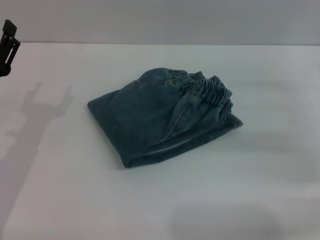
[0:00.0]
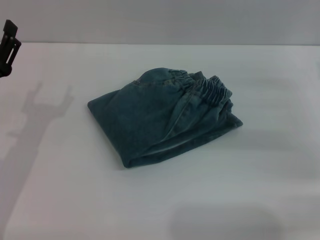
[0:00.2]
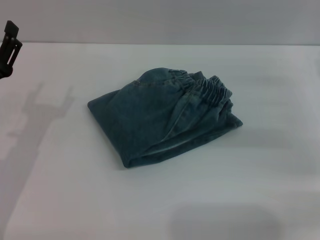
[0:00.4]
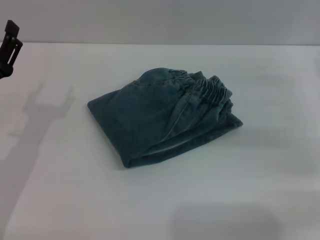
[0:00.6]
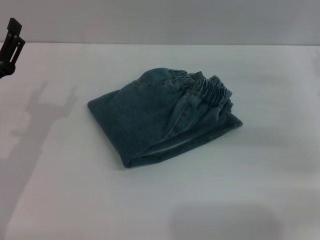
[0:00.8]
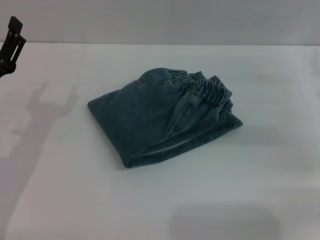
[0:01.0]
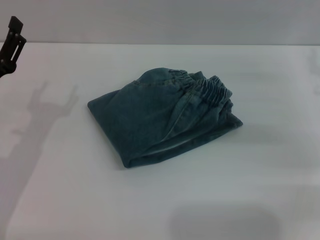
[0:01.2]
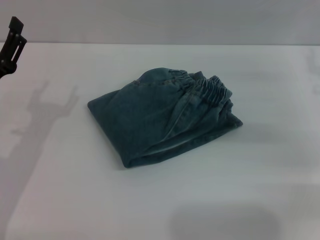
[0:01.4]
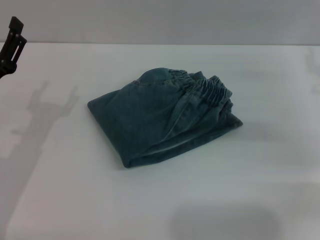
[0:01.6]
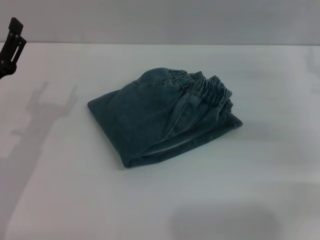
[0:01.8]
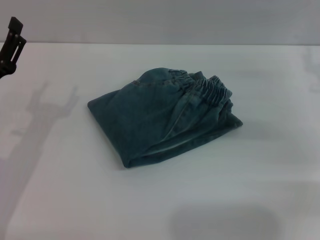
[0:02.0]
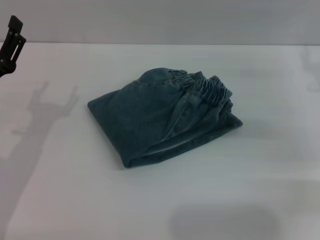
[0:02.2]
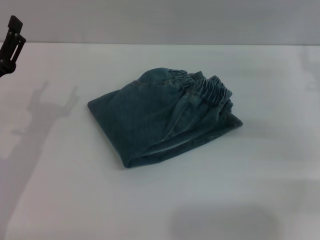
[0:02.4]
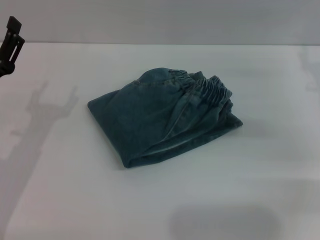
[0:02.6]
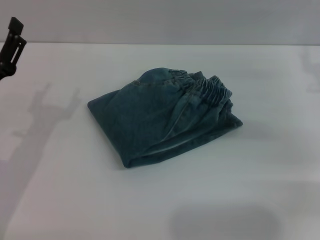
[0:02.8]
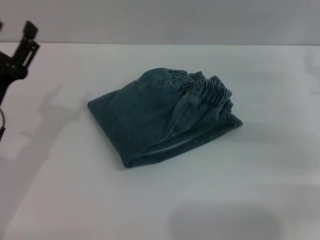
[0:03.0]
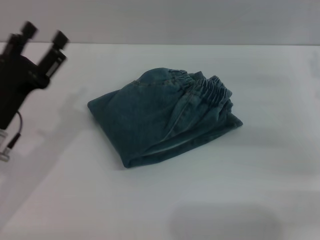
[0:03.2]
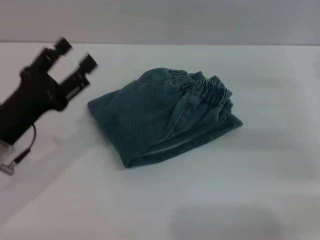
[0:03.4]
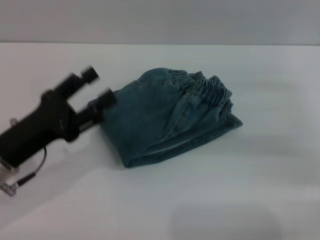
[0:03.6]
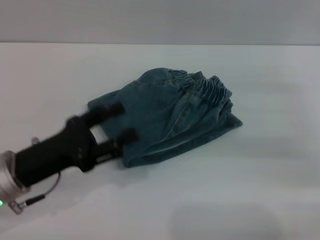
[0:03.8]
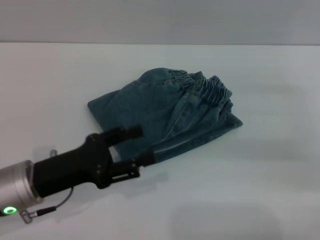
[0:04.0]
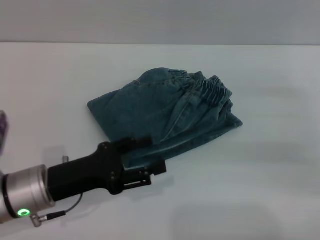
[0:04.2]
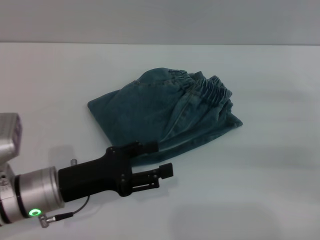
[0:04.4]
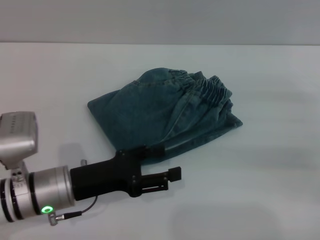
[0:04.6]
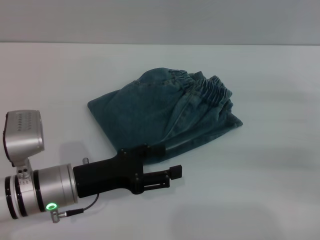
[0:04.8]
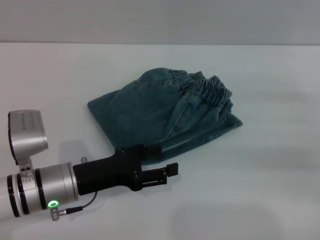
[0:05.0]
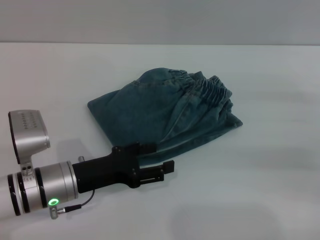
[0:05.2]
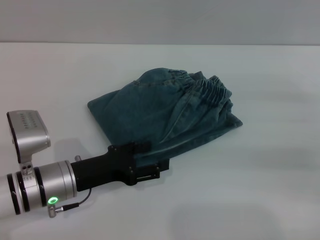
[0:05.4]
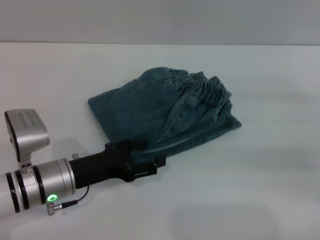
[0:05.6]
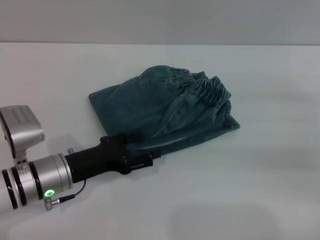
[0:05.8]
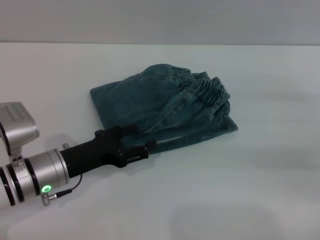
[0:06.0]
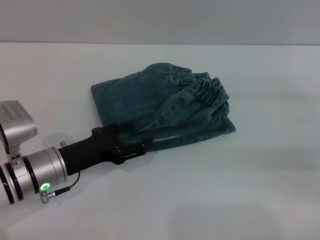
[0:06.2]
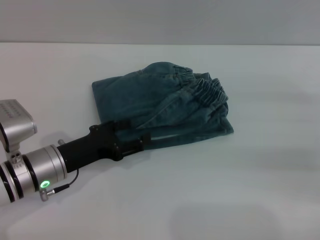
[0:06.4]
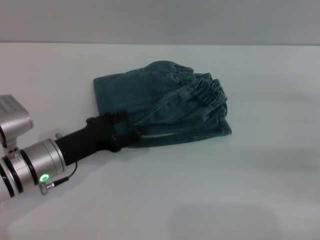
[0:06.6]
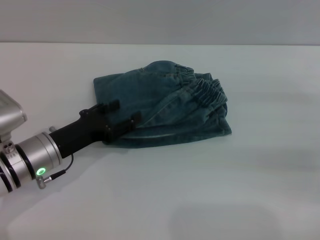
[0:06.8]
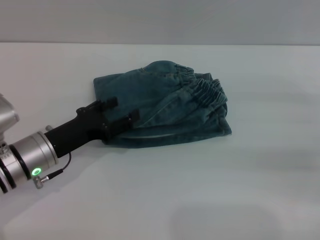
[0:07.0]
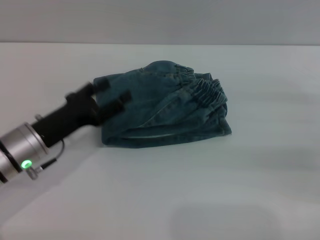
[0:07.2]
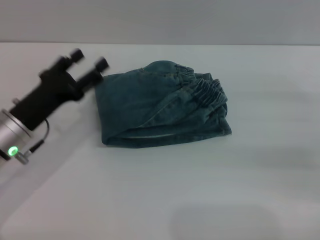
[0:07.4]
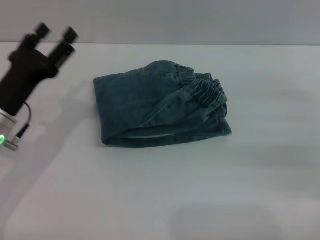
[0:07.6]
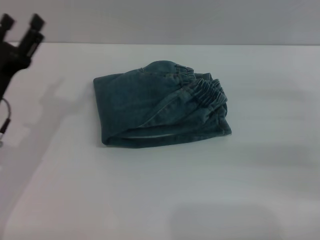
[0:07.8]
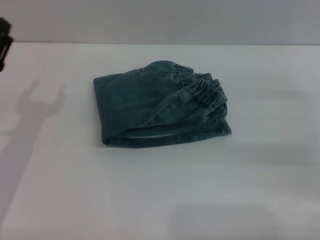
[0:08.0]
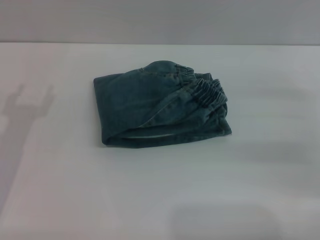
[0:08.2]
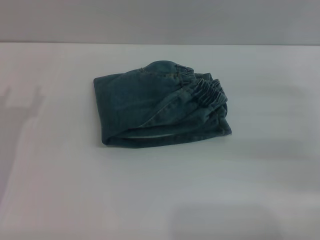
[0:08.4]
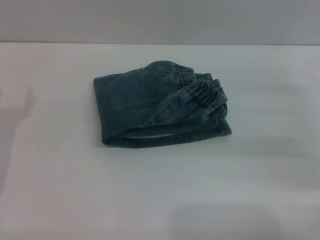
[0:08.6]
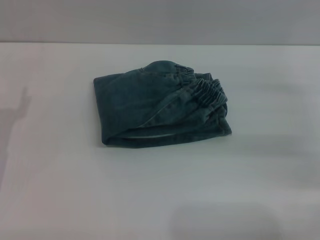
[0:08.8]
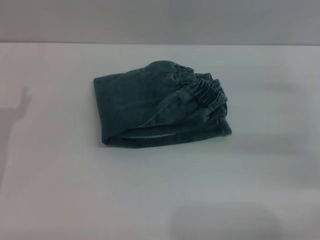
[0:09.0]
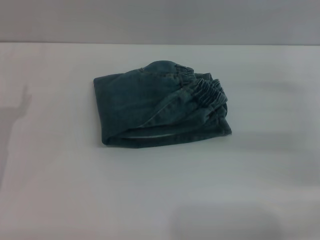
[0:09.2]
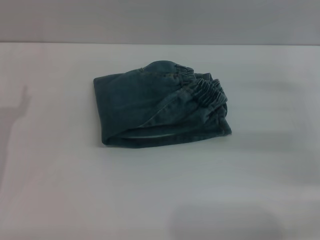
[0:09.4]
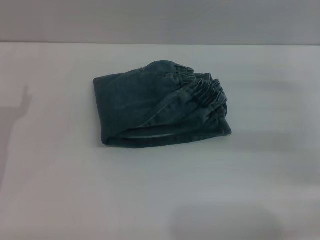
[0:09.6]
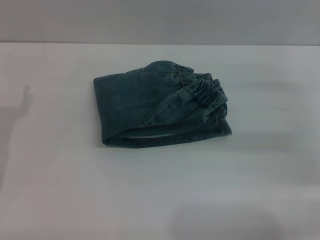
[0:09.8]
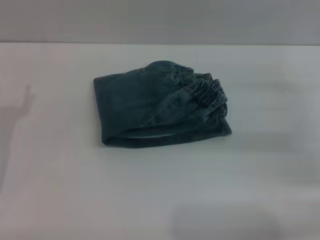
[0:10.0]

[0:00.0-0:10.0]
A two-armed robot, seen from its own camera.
Step, 0:00.0 to 0:07.4: Place the folded trousers onto the center area with the left grippers.
0:00.0 to 0:01.4: There are only small adjustments of the grippers.
0:01.4 to 0:02.8: Both grippers stay put.
0:02.8 to 0:04.2: The left gripper goes roughly 5 cm to the right. The right gripper changes place by roughly 5 cm.
0:04.2 to 0:05.8: There are only small adjustments of the grippers.
0:05.8 to 0:07.2: There are only small adjustments of the grippers.
0:07.2 to 0:08.6: The left gripper shifts approximately 10 cm to the left.
0:08.6 to 0:10.0: Neither gripper changes place.

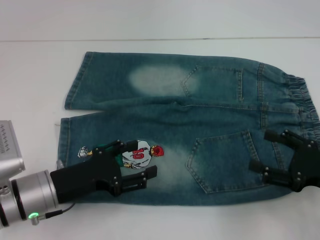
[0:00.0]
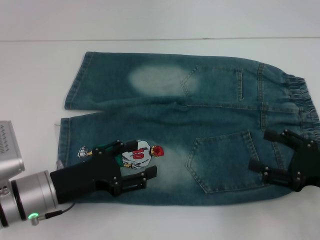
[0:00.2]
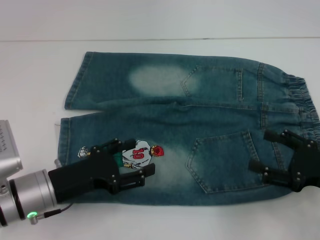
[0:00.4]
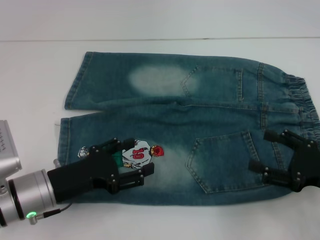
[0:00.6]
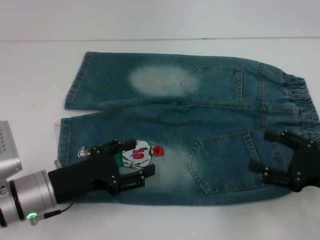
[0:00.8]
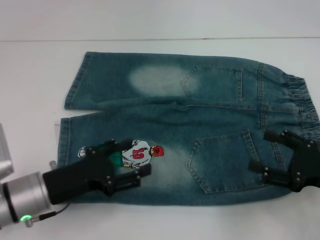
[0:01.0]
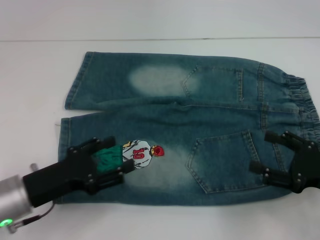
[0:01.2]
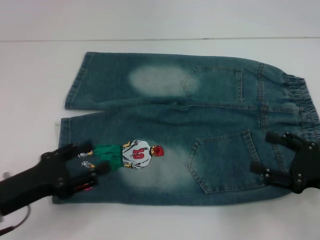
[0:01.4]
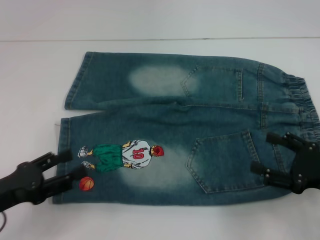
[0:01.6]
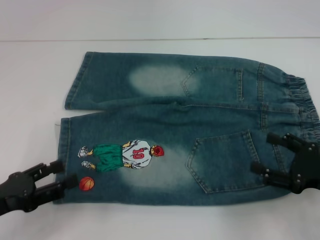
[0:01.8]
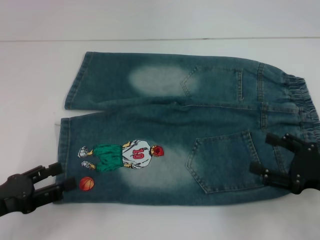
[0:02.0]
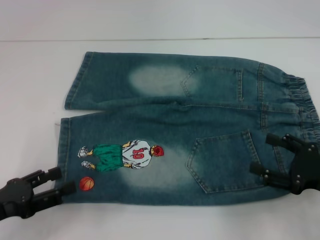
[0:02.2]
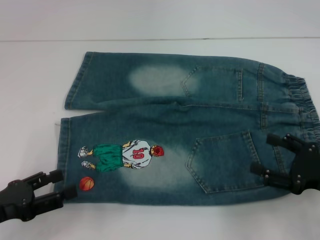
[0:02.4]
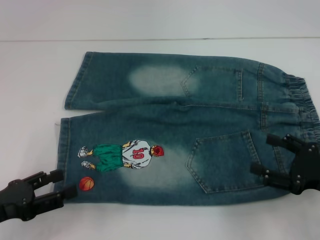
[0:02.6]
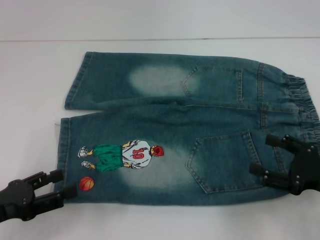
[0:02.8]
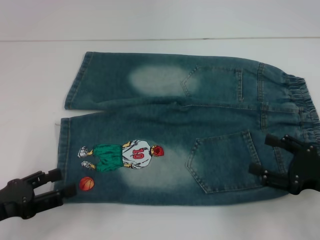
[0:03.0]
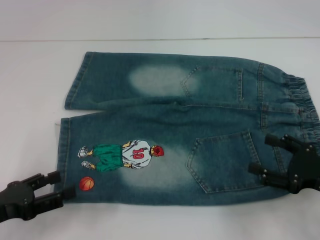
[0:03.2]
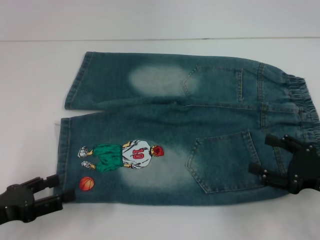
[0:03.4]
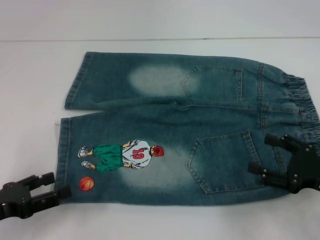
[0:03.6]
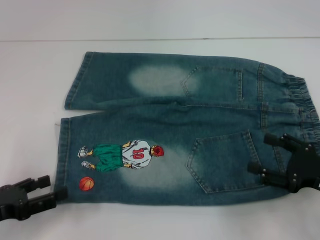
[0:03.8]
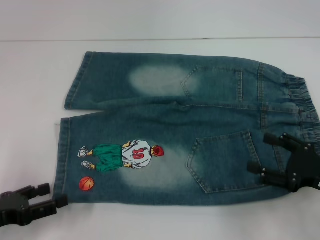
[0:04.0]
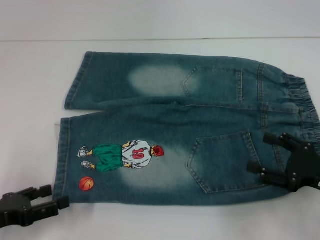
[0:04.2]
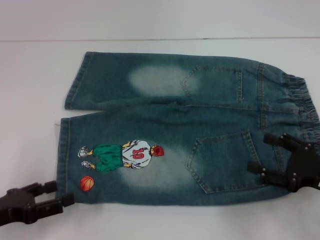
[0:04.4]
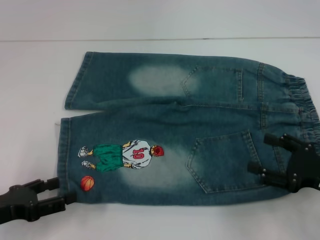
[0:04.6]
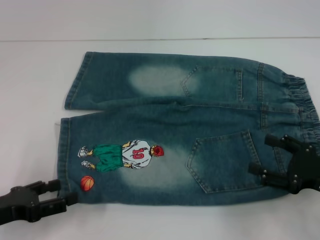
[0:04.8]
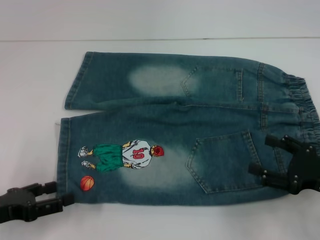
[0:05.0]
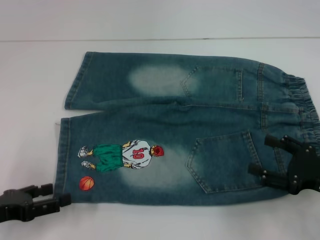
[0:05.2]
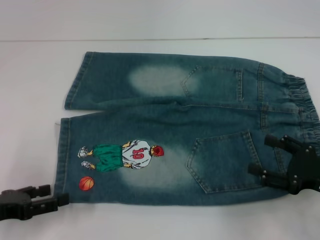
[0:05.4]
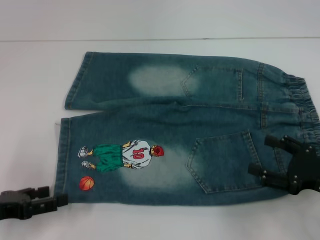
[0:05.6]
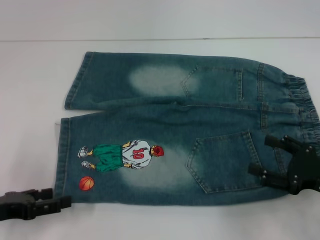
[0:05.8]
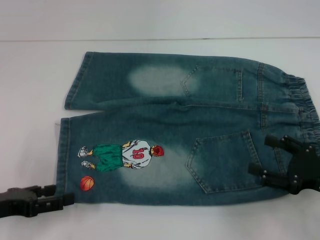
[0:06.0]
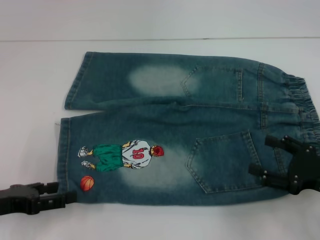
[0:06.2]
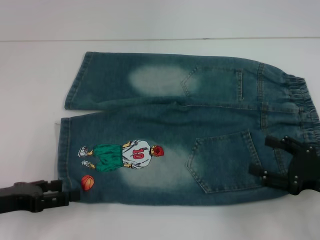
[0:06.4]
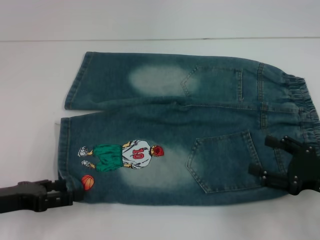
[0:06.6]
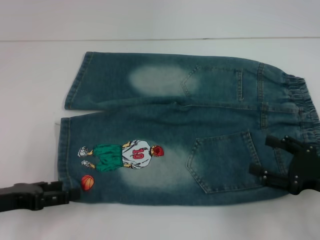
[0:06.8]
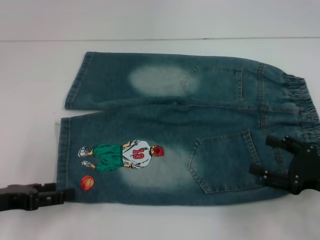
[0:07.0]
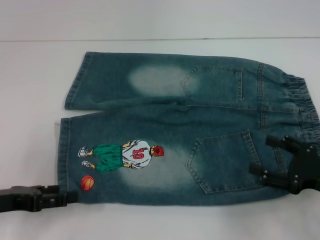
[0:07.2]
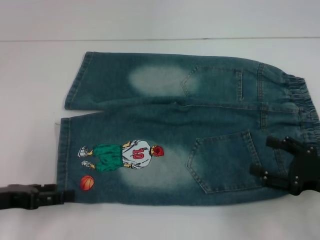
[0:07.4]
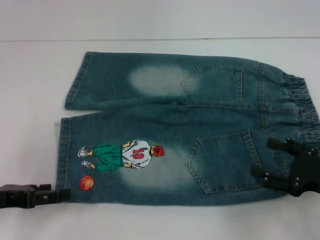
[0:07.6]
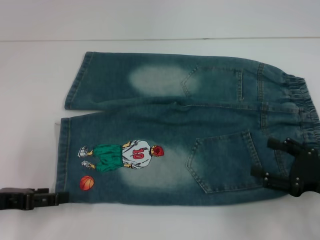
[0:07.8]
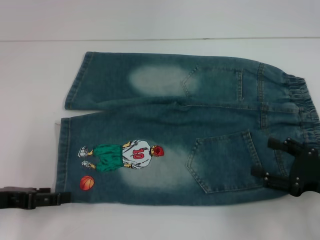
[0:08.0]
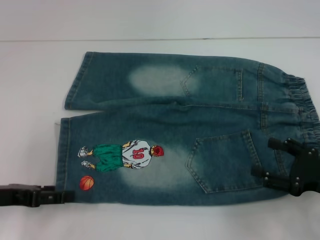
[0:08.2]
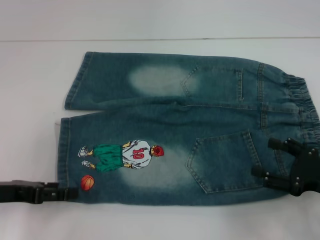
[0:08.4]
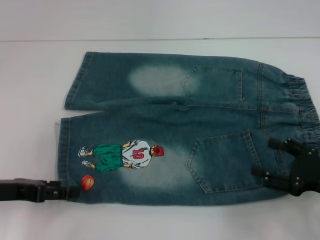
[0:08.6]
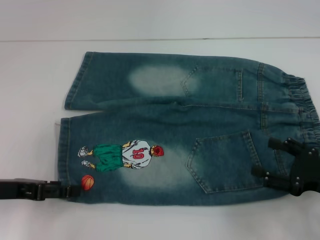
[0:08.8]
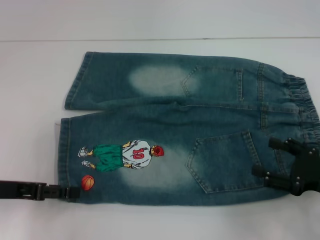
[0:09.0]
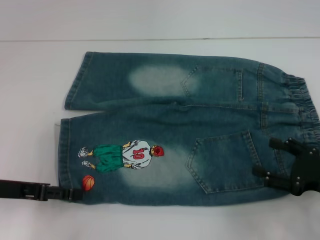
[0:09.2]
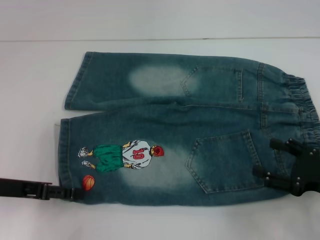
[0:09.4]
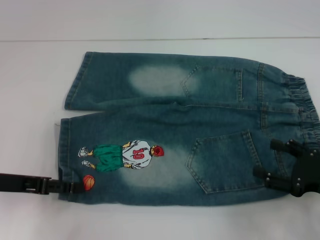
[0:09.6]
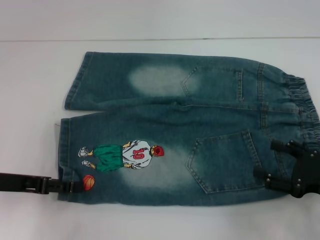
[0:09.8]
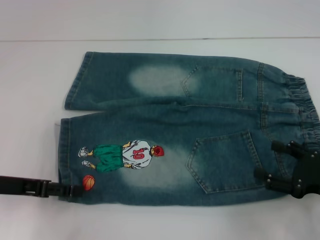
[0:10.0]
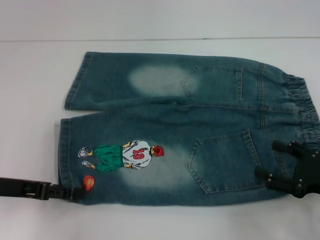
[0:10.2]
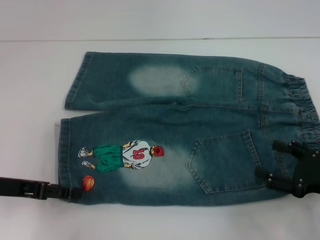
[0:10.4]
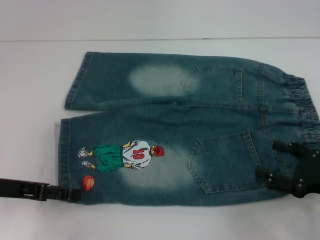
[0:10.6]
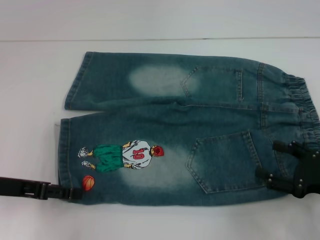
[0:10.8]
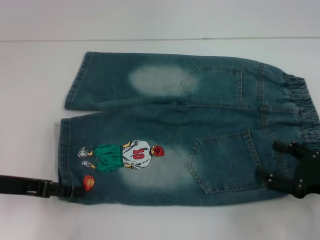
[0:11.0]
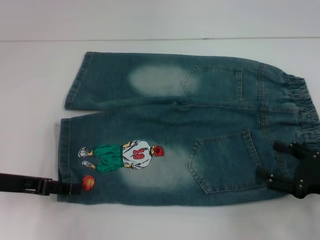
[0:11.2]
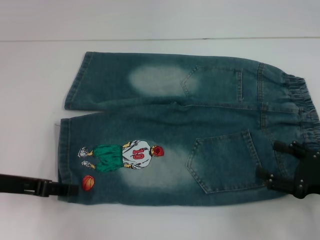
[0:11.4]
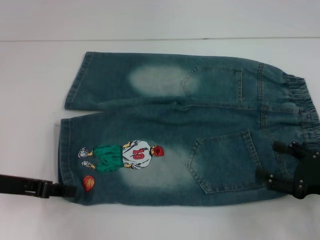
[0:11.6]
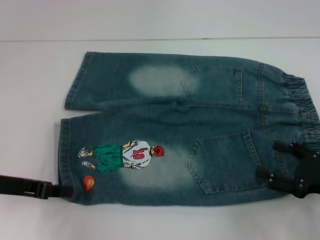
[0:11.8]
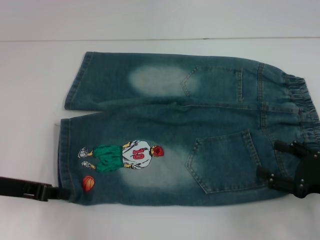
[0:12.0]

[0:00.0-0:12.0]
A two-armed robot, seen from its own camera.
0:00.0 to 0:01.6: The left gripper is displaced to the left by about 10 cm.
0:01.6 to 0:04.4: The grippers move only a little.
0:04.4 to 0:07.6: There are only small adjustments of the grippers.
0:07.6 to 0:09.0: There are only small adjustments of the grippers.
0:09.0 to 0:10.4: Neither gripper changes place.
